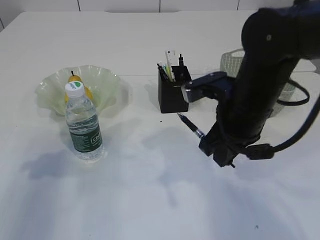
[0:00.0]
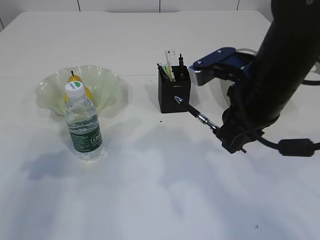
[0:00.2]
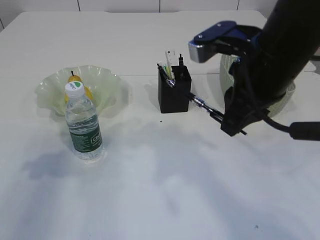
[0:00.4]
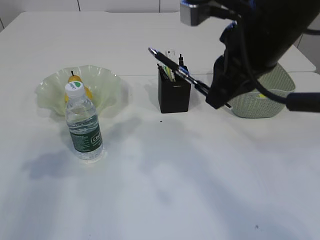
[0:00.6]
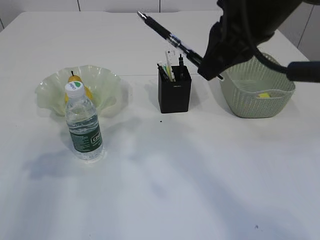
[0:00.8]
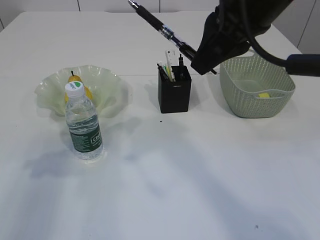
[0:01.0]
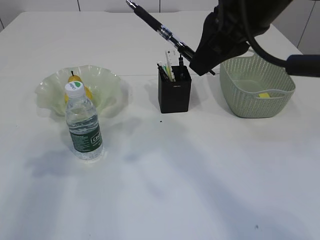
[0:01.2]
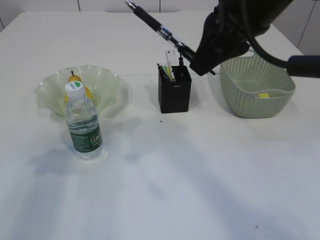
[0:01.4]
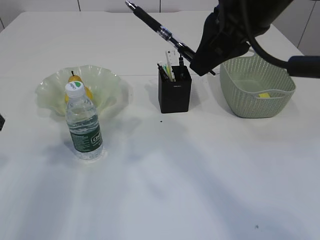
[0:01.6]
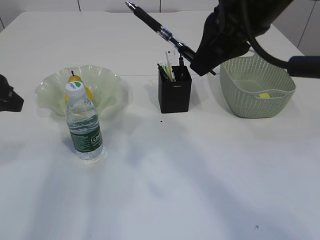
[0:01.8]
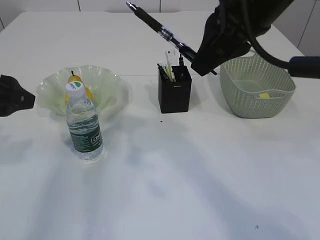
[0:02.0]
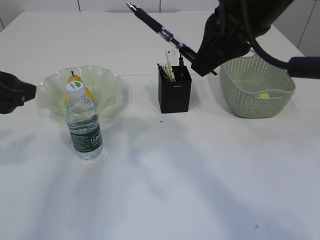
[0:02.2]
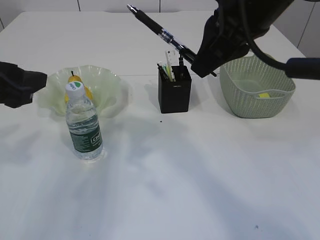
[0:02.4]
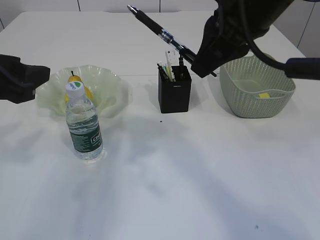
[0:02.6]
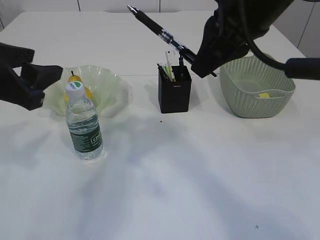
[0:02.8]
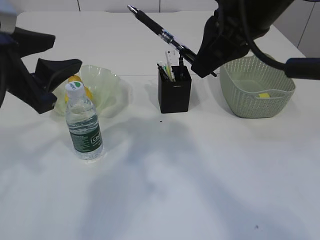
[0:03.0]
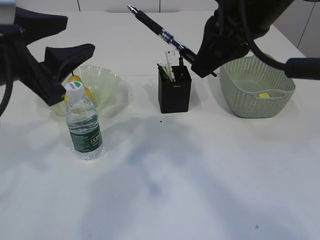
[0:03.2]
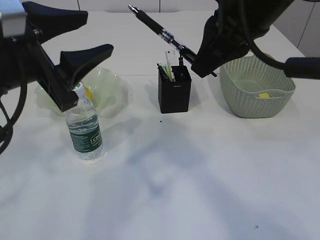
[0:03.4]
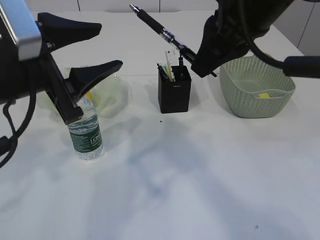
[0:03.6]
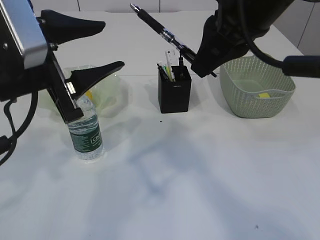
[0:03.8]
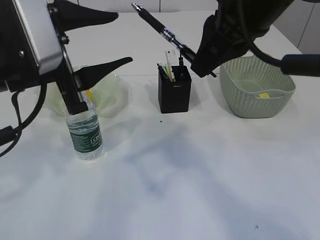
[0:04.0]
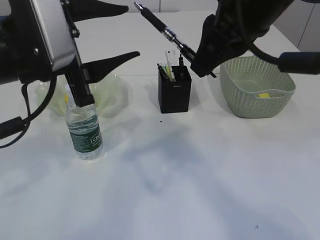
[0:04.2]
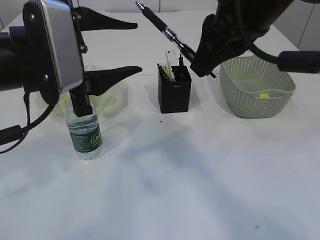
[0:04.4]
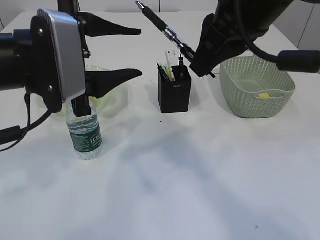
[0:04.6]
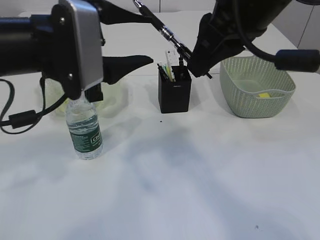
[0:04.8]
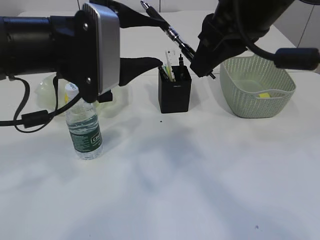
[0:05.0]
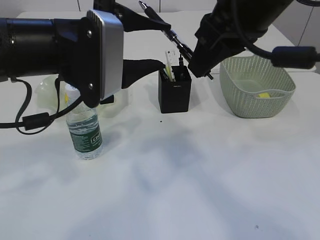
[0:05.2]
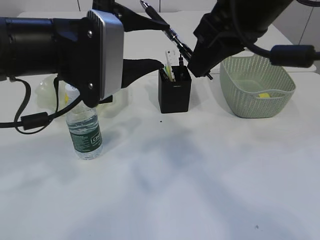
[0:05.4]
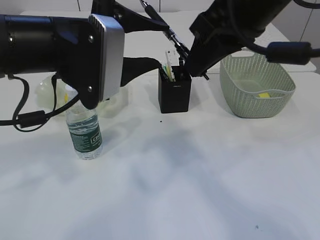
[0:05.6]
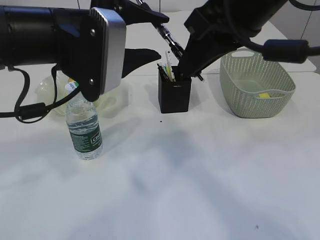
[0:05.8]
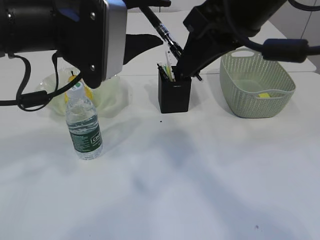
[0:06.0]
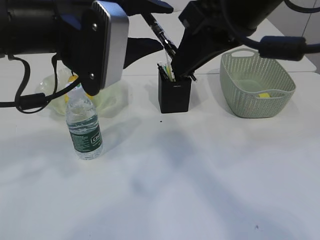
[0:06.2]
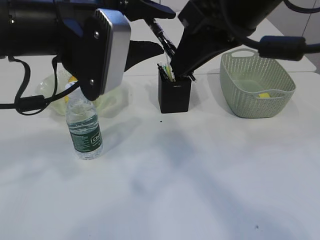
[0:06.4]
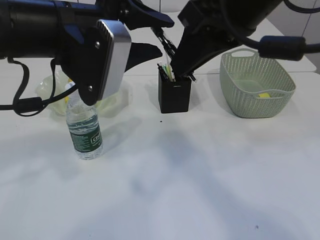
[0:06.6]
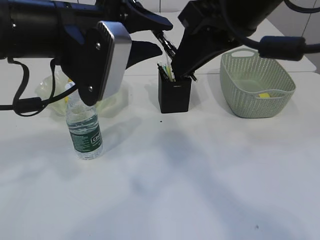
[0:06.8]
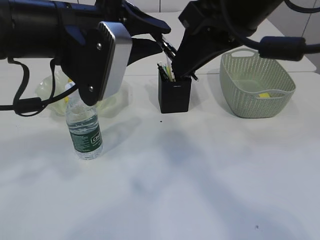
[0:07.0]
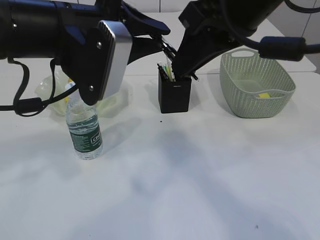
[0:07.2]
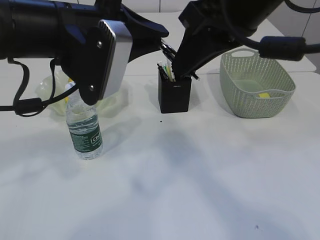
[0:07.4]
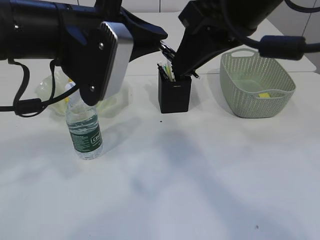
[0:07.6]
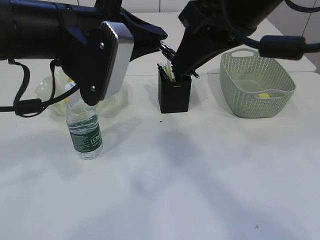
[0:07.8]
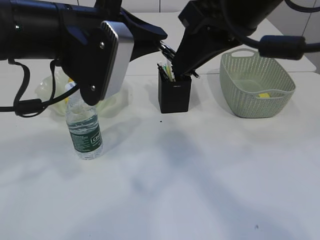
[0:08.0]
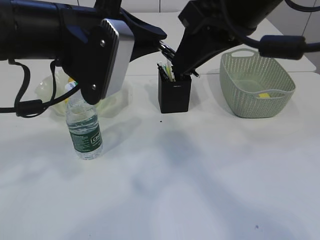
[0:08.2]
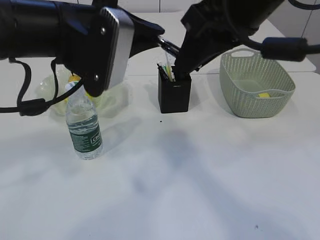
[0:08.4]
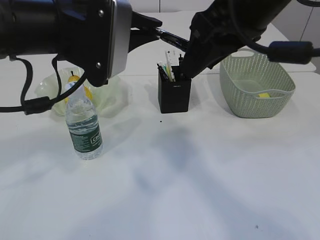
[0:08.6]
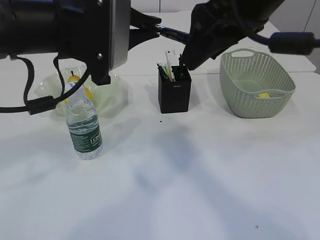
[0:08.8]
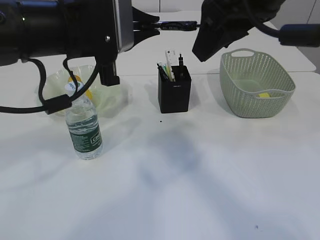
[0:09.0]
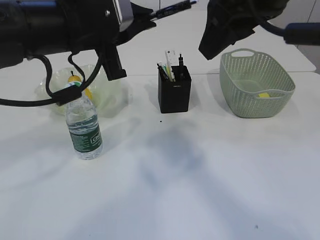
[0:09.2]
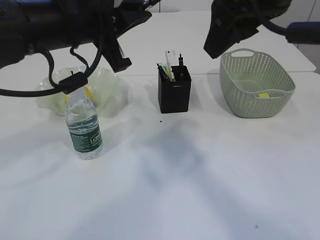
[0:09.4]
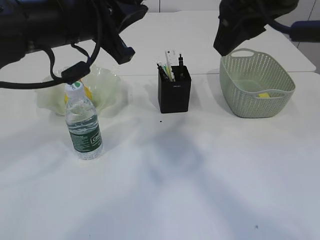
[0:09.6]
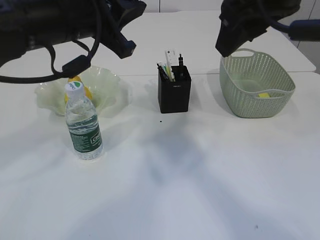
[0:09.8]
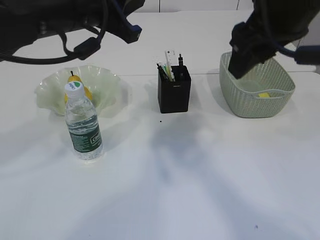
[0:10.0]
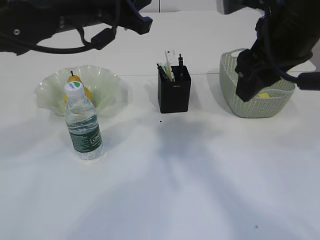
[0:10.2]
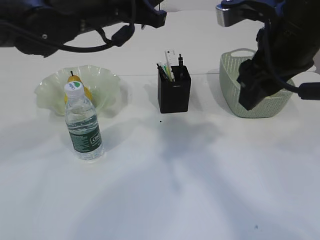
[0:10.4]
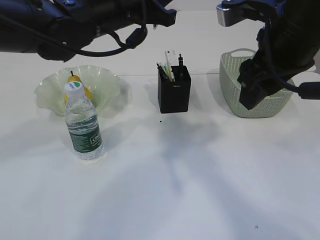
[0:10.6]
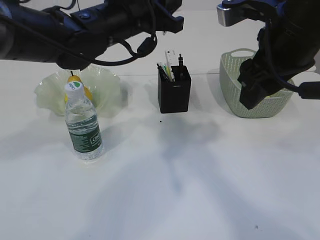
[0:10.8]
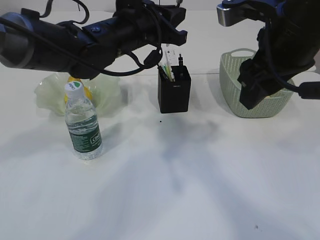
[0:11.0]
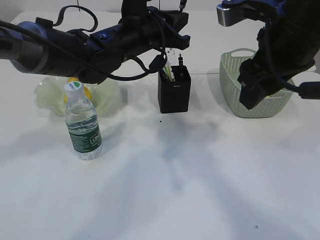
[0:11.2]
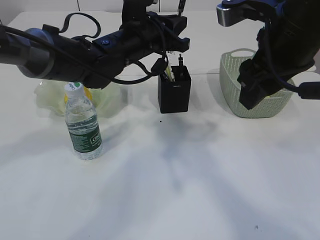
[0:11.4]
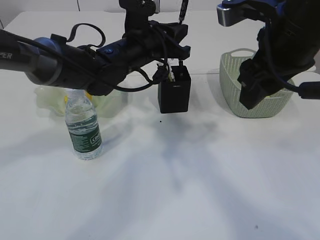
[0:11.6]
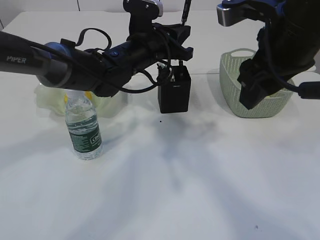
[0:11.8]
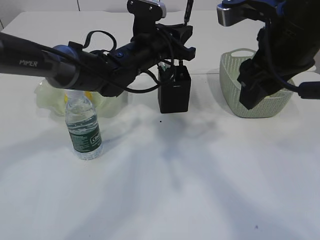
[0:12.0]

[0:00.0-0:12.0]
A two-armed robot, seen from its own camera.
Step, 0:00.0 to 0:09.0: transfer the pen to the left arm.
0:00.0 to 0:01.6: The right gripper moves upward, some 15 cm.
0:01.6 to 0:03.0: The left gripper heads to the right, covering some 10 cm.
0:03.0 to 0:04.4: The left gripper shifts approximately 5 cm to the right.
0:04.4 to 0:06.0: The left gripper shifts by about 5 cm.
0:06.0 to 0:07.6: The left gripper closes up.
0:07.6 to 0:09.0: The right gripper opens up.
0:09.0 to 0:10.4: The right gripper moves downward, some 5 cm; the left gripper is displaced forward by some 5 cm.
0:10.4 to 0:12.0: The left gripper is displaced downward, forward and to the right by some 15 cm.

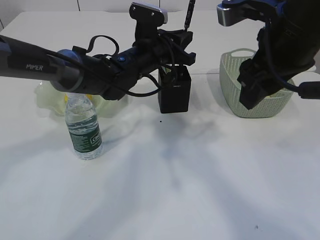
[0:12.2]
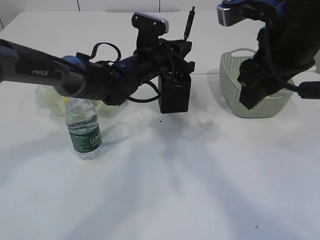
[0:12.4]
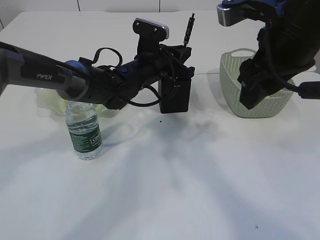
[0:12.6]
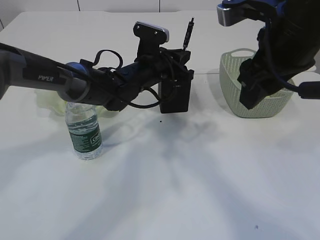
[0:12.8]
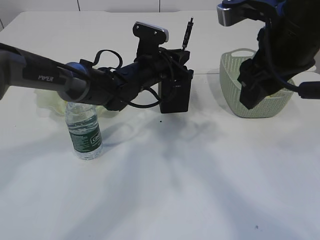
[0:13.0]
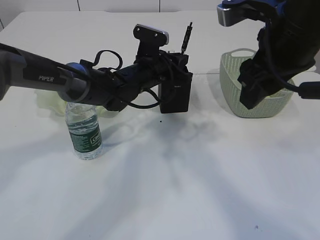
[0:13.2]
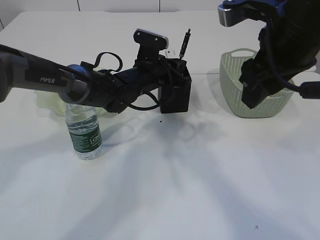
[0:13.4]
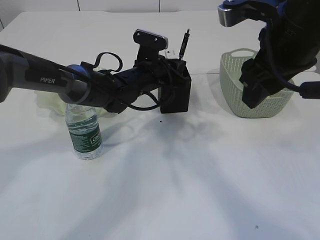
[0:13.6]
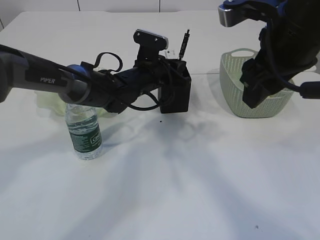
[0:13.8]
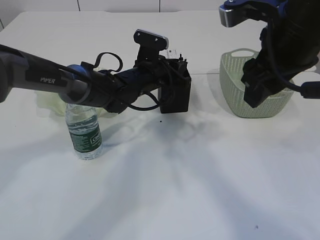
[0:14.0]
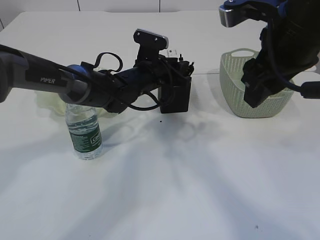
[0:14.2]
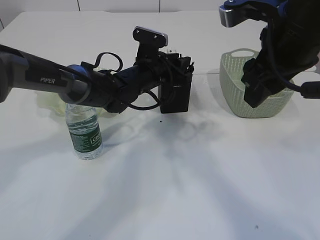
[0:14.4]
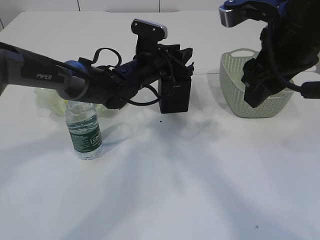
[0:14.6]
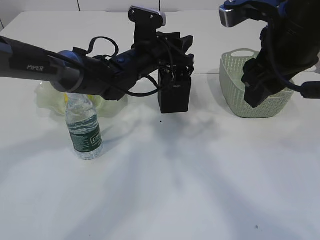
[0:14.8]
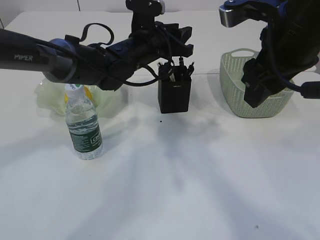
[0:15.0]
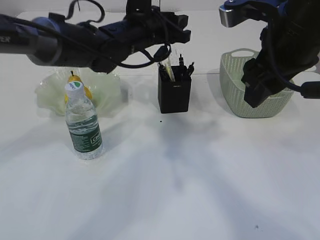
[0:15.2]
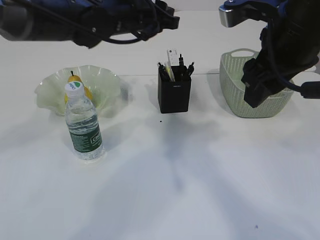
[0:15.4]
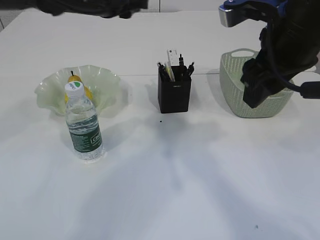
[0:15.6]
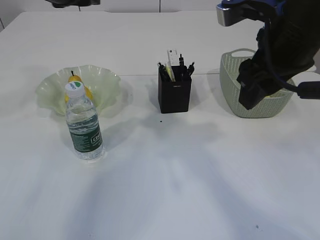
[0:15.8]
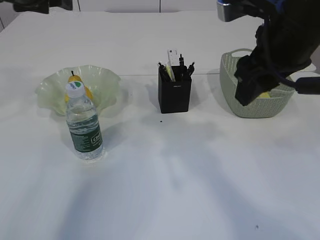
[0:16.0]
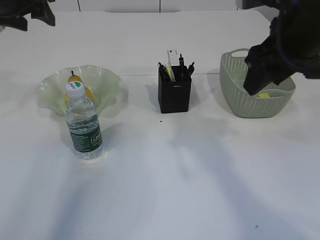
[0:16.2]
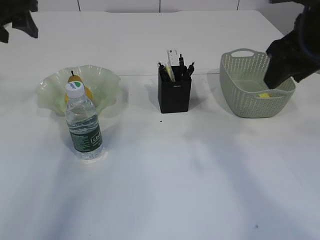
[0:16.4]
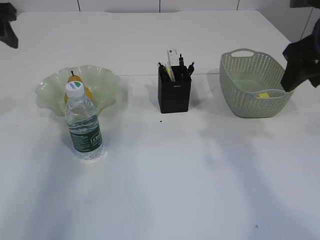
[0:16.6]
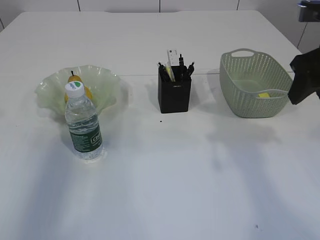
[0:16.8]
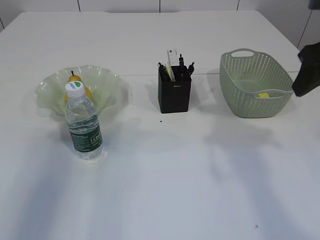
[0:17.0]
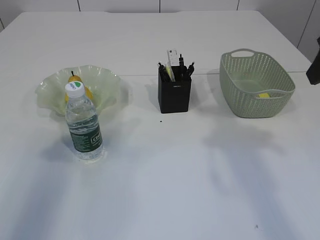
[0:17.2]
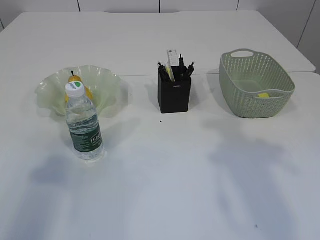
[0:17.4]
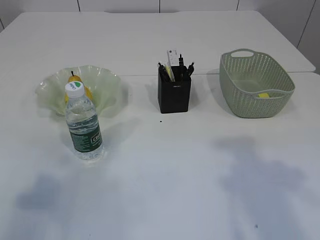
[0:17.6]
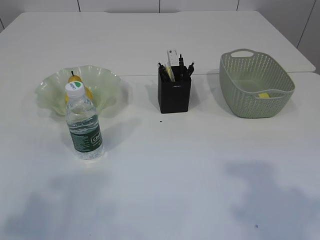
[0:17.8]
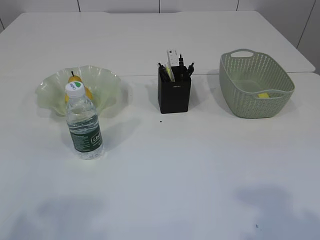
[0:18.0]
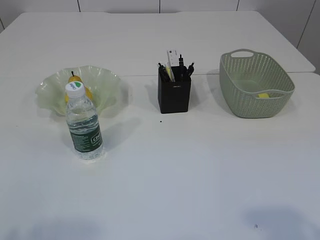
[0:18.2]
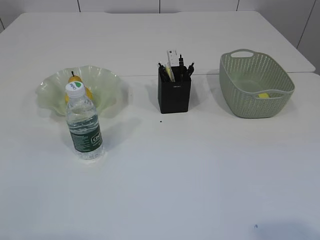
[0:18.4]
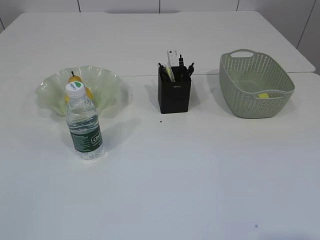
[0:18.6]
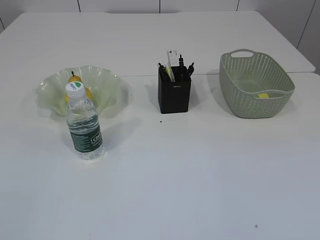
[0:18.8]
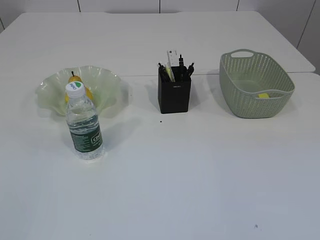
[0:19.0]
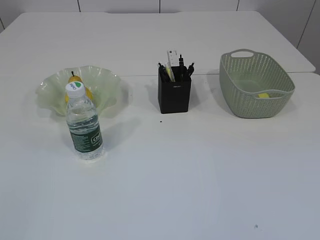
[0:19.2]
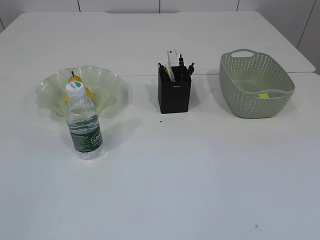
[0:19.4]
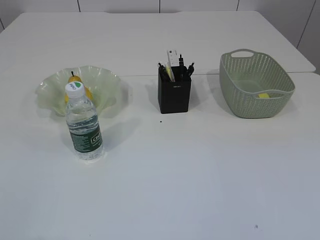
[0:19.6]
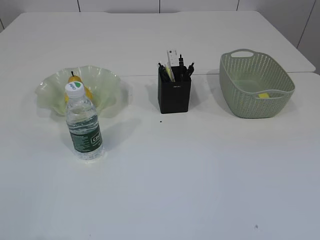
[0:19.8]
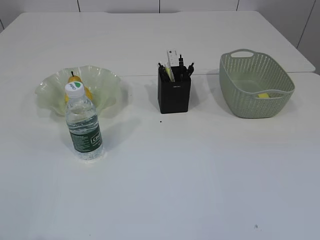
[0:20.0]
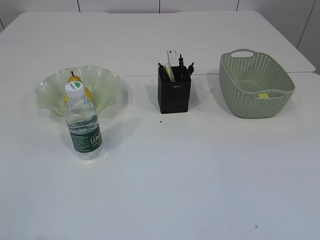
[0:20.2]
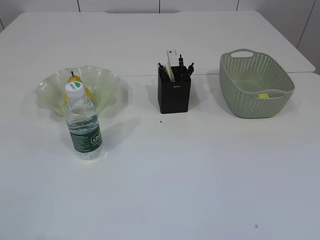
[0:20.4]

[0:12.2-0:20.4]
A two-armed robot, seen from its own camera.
Step, 0:12.2 to 0:14.6: Place the pen into the pen holder.
0:12.2 to 0:13.8: The left gripper is displaced downward by about 5 cm.
0:13.8 to 0:15.4: The left gripper travels upward by roughly 15 cm.
0:15.4 to 0:17.2: The right gripper goes approximately 10 cm to the right. The left gripper heads to the left and backward, covering approximately 35 cm, and opens.
0:17.2 to 0:18.8: The left gripper moves backward, approximately 25 cm.

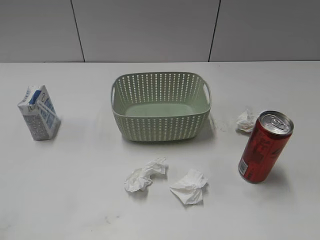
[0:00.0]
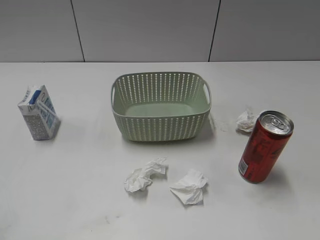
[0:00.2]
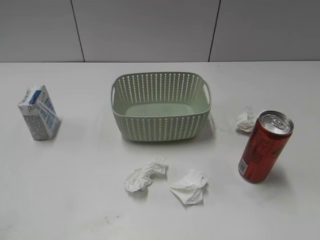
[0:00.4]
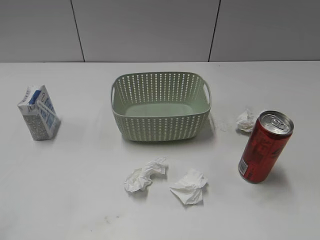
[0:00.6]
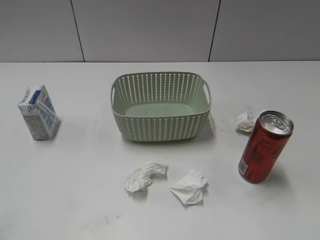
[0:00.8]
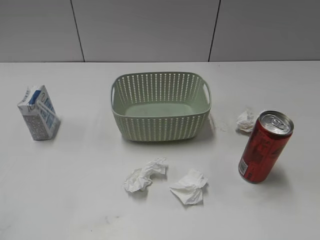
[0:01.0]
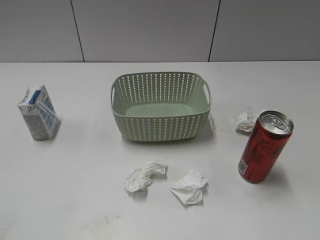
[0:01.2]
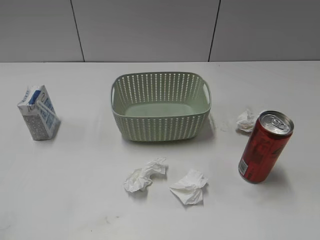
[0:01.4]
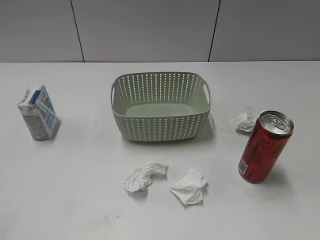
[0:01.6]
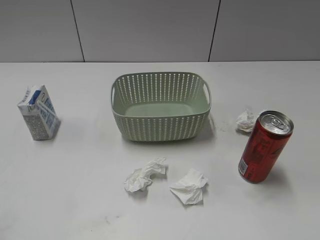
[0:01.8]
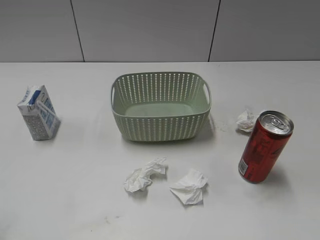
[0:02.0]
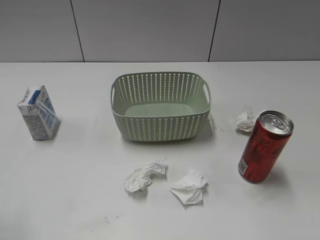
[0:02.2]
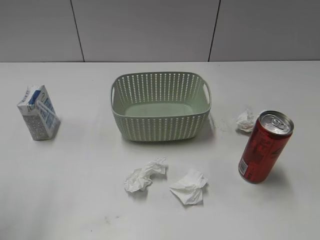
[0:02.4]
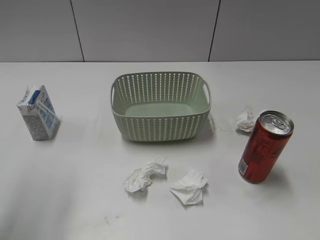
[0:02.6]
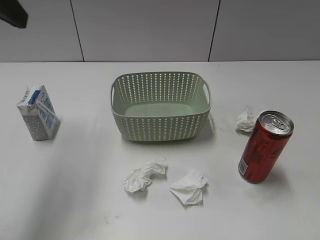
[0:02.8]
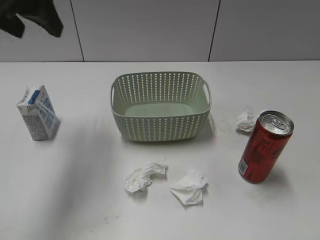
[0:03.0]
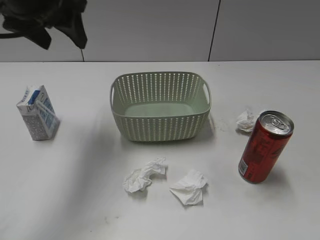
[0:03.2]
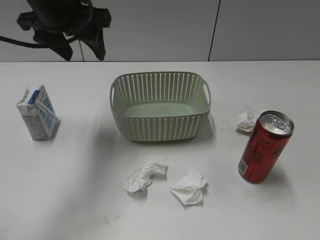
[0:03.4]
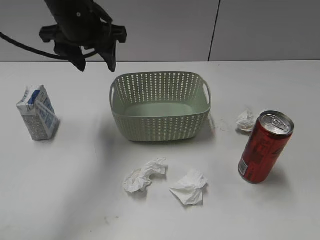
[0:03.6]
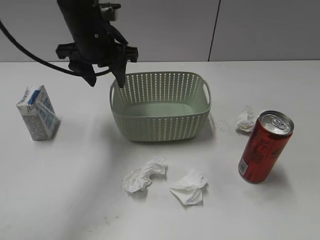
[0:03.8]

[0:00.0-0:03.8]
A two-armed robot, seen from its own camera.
0:01.2 to 0:02.6: The left gripper goes approximately 25 cm forward and upward.
0:02.6 to 0:03.8: The left gripper is displaced forward, to the right and downward by roughly 30 cm.
